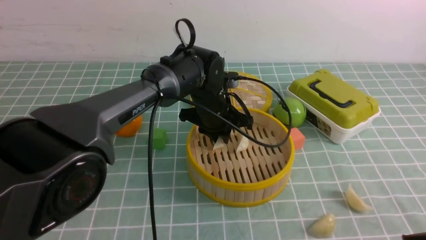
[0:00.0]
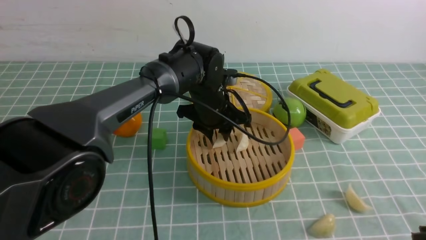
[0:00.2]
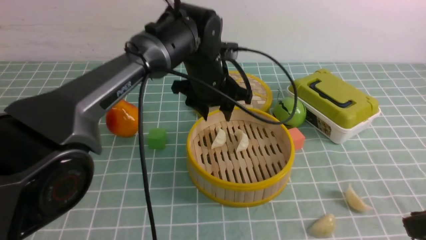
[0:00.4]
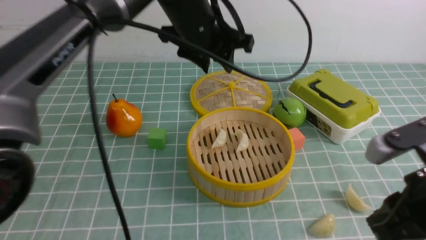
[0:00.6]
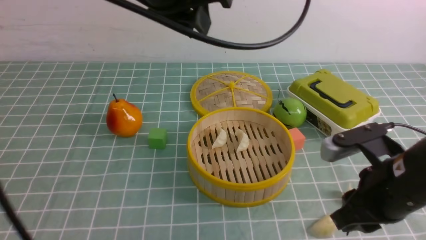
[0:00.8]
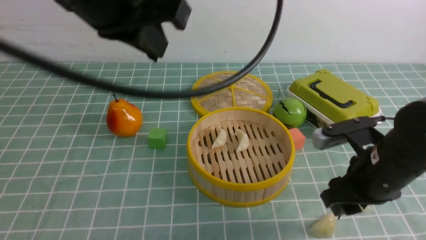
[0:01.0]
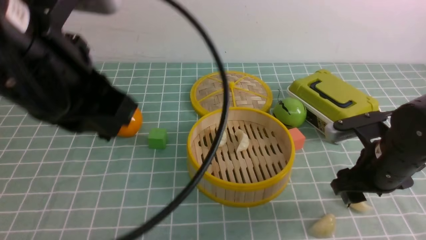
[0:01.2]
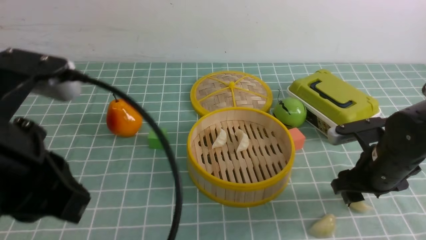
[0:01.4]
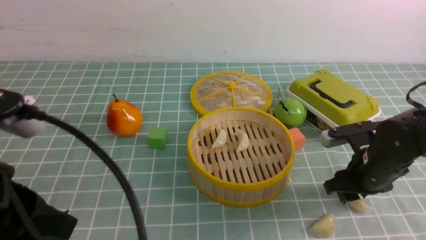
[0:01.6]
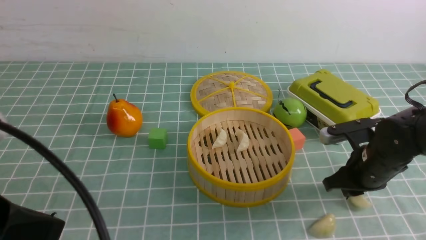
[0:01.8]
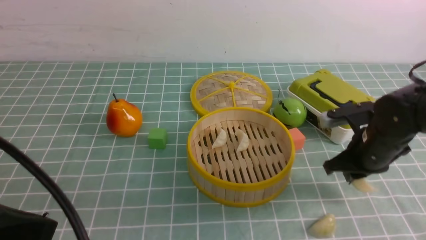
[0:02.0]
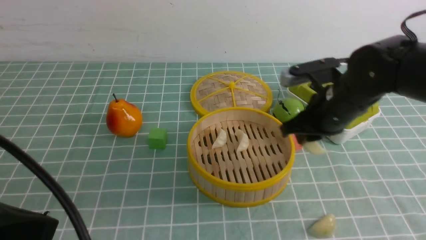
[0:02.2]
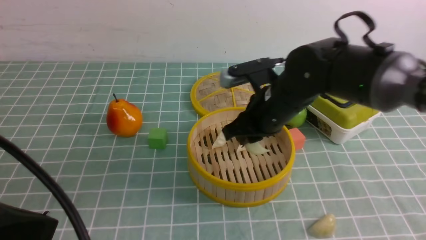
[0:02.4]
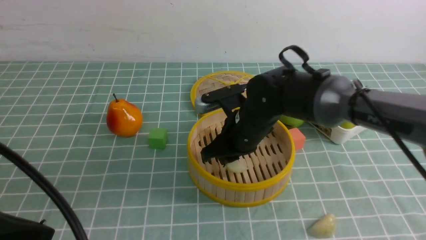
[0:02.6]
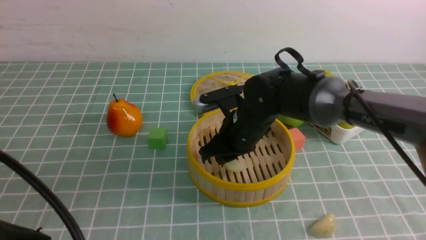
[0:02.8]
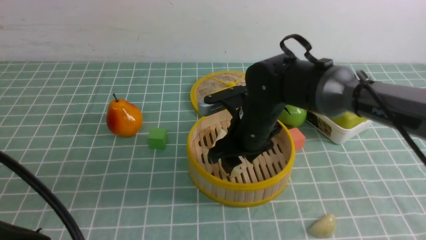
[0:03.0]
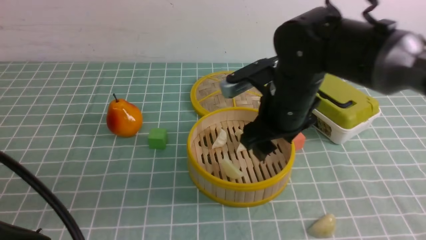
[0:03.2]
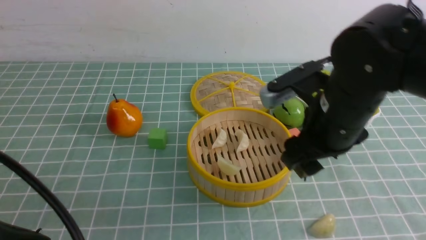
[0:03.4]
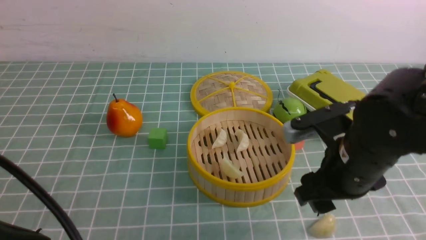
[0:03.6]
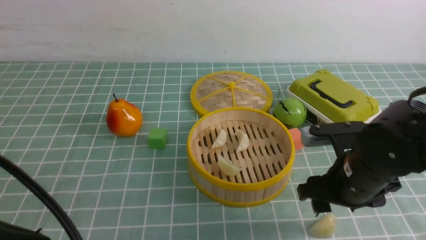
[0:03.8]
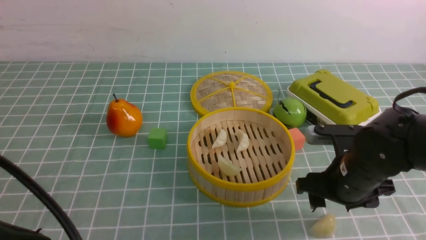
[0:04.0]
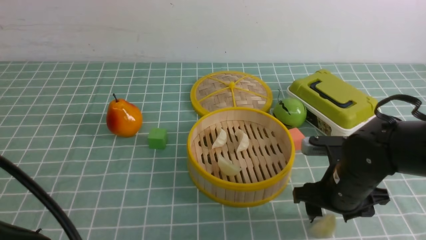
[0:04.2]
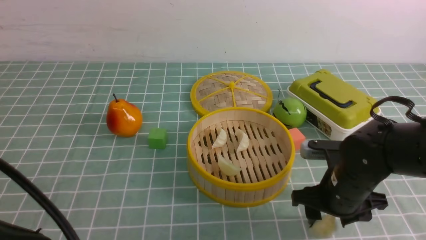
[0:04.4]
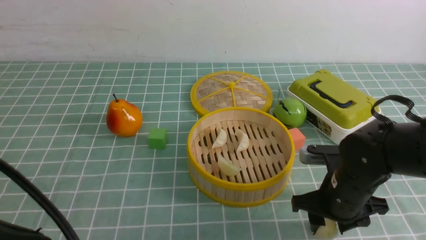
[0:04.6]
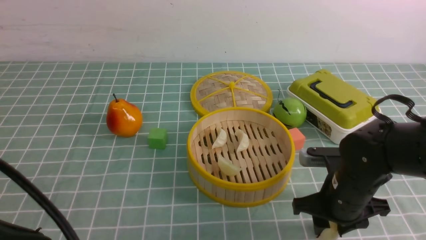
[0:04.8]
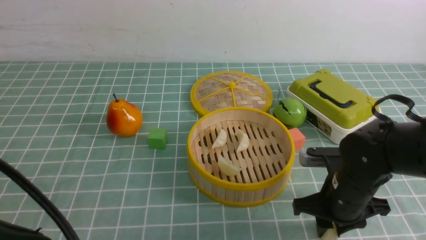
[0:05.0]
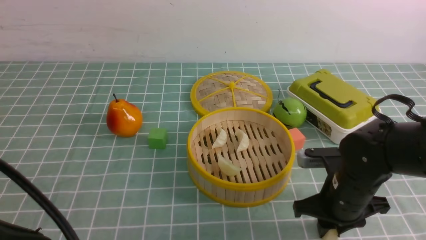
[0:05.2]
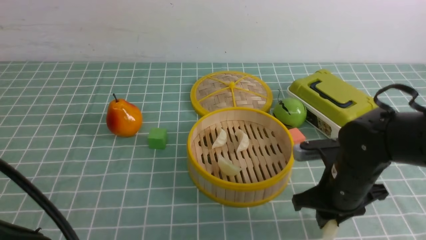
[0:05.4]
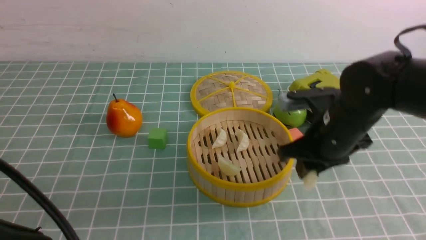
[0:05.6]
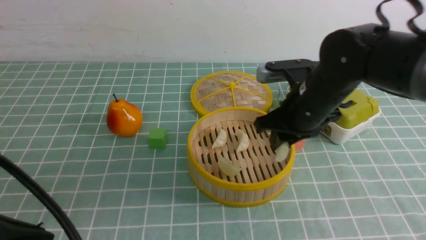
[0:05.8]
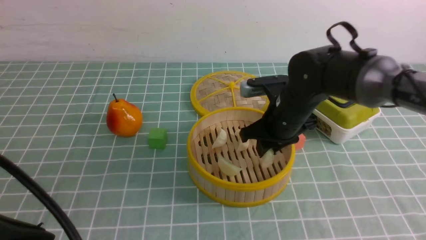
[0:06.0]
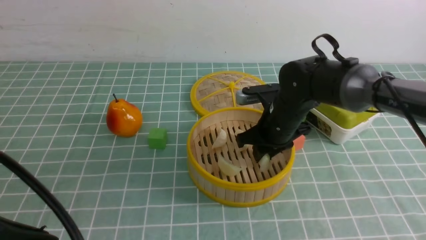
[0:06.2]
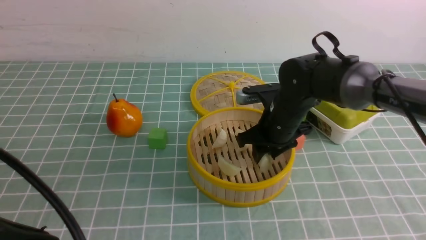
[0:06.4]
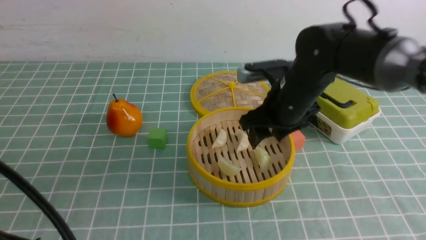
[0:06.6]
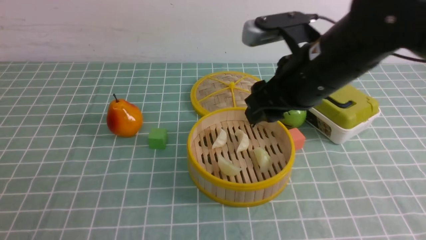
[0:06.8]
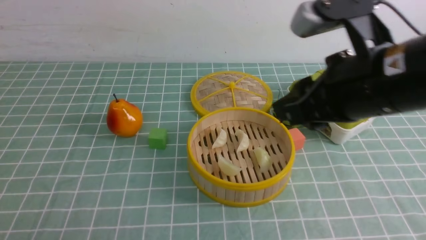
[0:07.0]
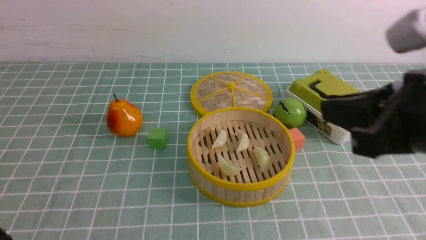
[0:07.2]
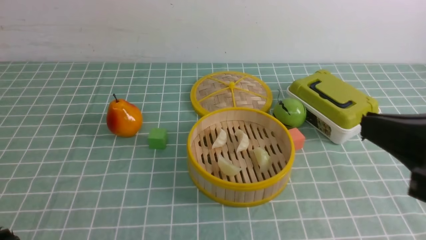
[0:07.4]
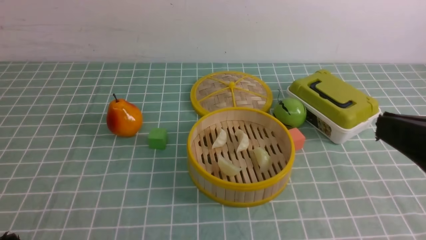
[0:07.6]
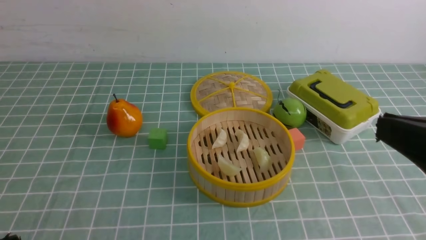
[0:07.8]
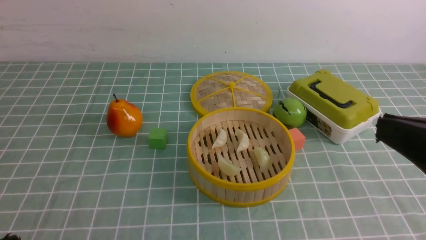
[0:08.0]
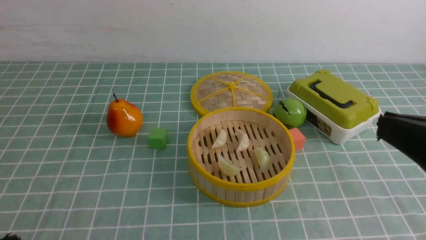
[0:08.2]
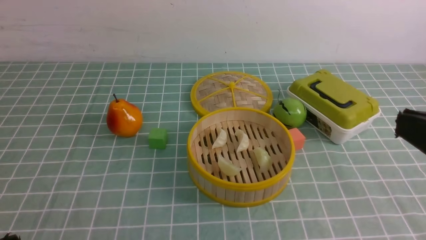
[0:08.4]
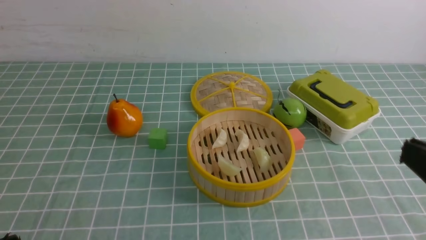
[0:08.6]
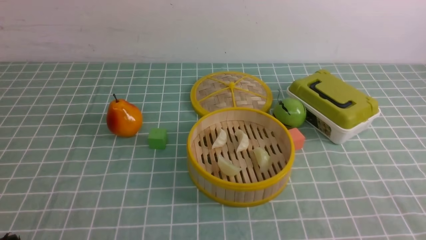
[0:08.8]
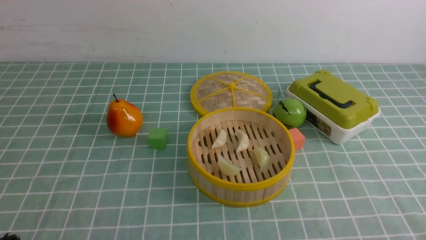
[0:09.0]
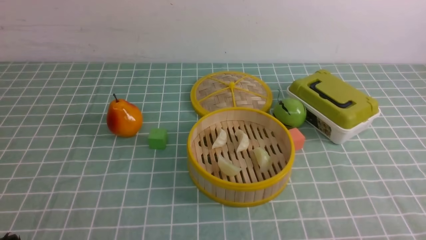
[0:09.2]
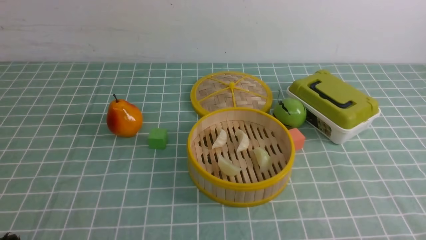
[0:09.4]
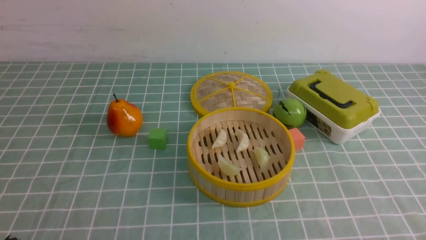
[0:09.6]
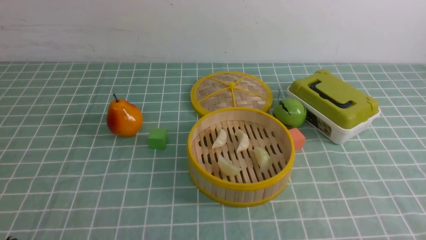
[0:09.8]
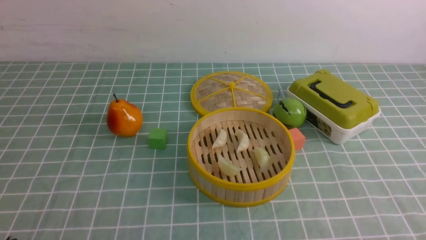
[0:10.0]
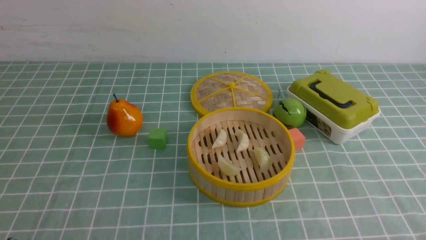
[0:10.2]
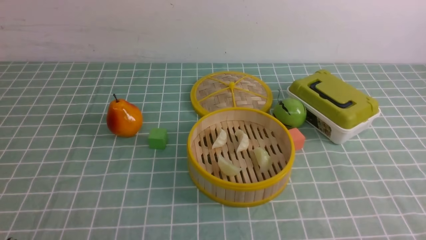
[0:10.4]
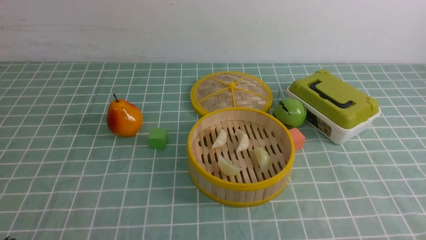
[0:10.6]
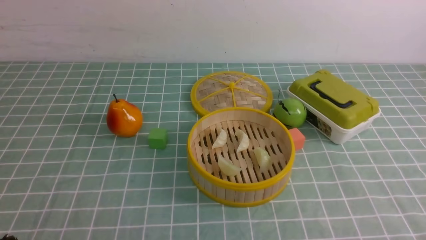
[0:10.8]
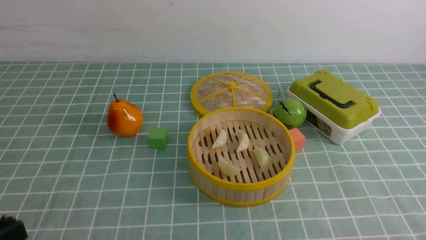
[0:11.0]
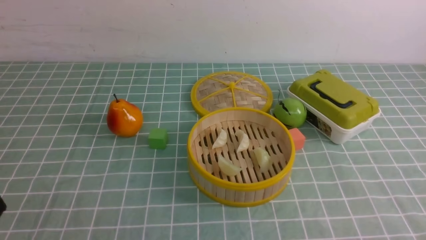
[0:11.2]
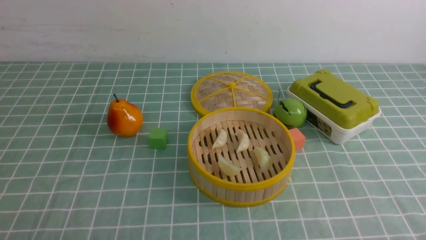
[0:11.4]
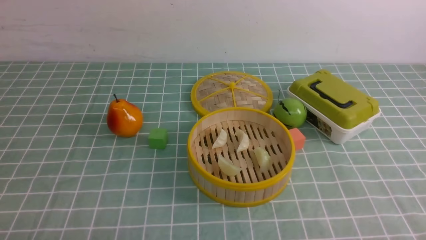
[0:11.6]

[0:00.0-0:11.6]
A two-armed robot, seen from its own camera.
Task of the whole recording: put the dumplings into the steamer on the table with the blue tablecloth.
Step, 0:00.4 to 0:02.2: use the right arm to grab a dumpling.
Step, 0:02.4 to 0:03.2: use the right arm to put the dumpling into the steamer.
Step, 0:03.4 to 0:05.6: use the right arm to grab a dumpling.
Step, 0:05.8 to 0:06.6: use the right arm to put the dumpling into the steamer.
0:00.0 to 0:01.4: The left gripper heads backward, upward and to the left, covering approximately 40 cm, and closes; the right gripper heads forward and downward, covering about 25 cm, and opens.
0:01.4 to 0:02.8: The right gripper moves to the left, about 20 cm. The left gripper goes roughly 5 cm backward.
0:02.8 to 0:04.4: The right gripper heads to the right and backward, covering about 15 cm, and opens up.
0:04.4 to 0:05.8: The right gripper goes approximately 10 cm upward and forward, and closes.
0:05.8 to 0:07.2: The right gripper shifts about 25 cm backward and upward, and opens, then closes once more. Meanwhile the left gripper heads backward and downward, covering about 10 cm.
0:07.2 to 0:08.8: The right gripper heads downward, to the right and backward, covering about 20 cm.

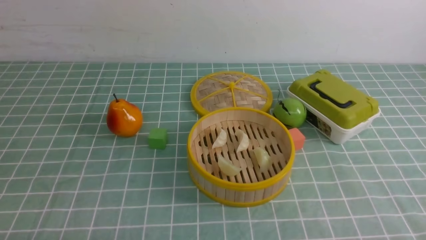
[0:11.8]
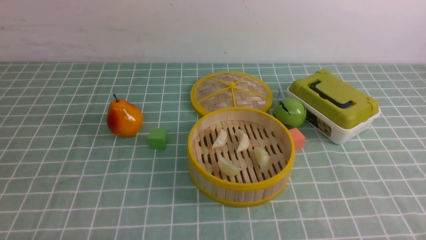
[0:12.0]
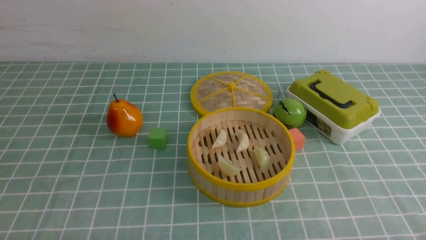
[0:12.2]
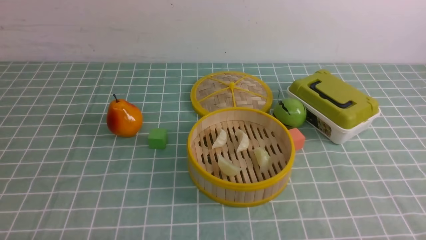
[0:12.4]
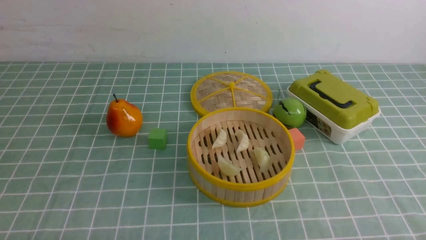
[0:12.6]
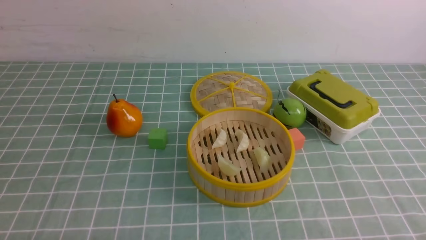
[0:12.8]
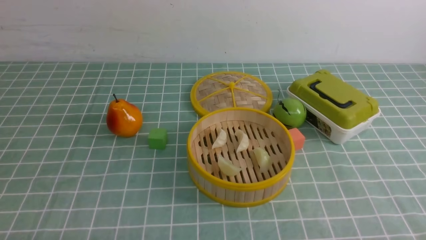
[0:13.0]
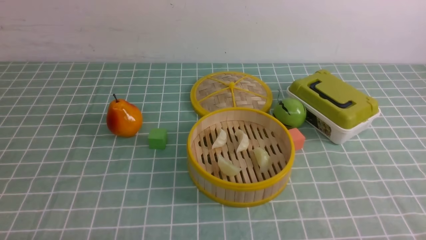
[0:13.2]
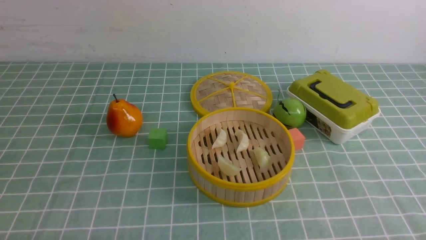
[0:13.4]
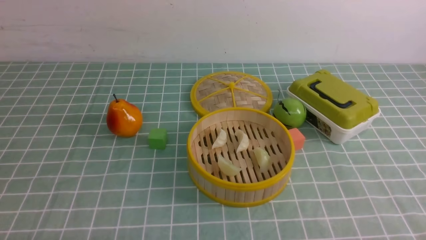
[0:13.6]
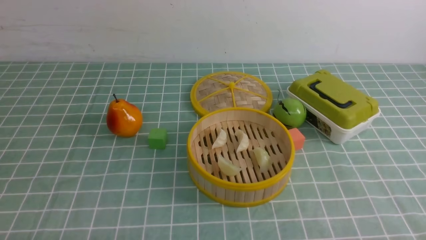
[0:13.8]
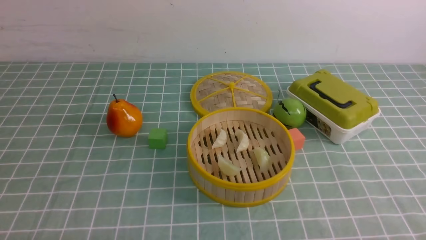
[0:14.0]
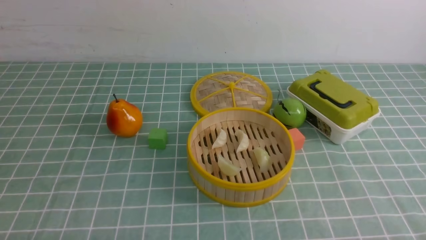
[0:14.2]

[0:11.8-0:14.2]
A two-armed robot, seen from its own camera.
Task of the whole recording: put the dumplings into the steamer on the table with the blue tablecloth.
0:11.8 to 0:14.2: Neither gripper changes place.

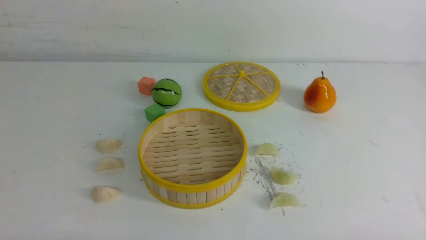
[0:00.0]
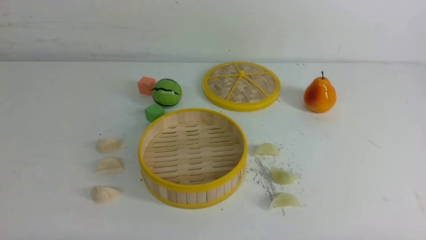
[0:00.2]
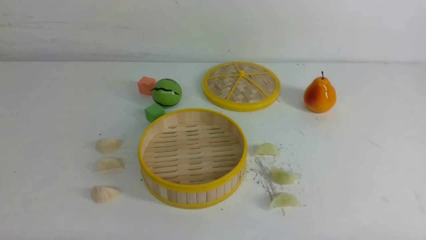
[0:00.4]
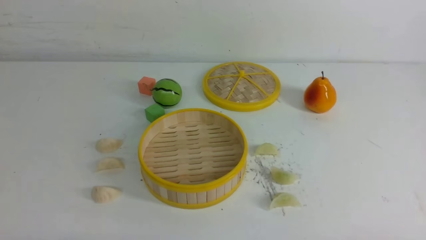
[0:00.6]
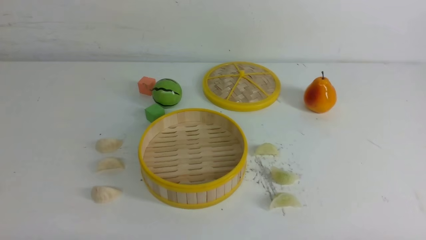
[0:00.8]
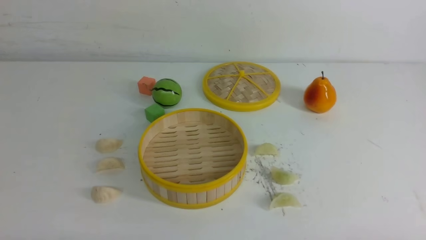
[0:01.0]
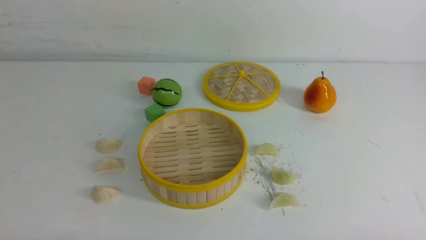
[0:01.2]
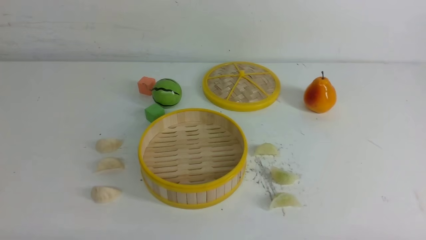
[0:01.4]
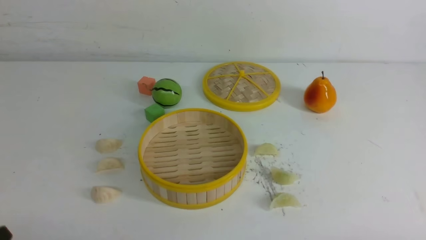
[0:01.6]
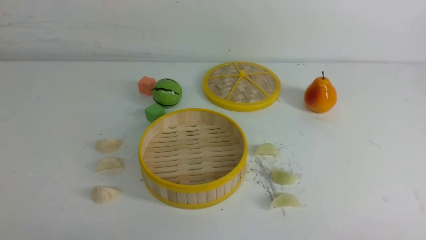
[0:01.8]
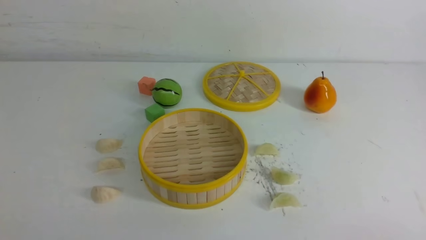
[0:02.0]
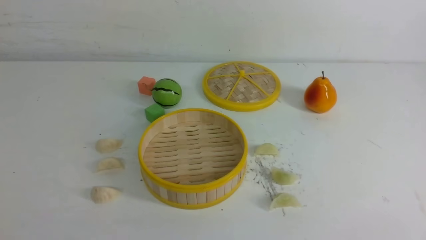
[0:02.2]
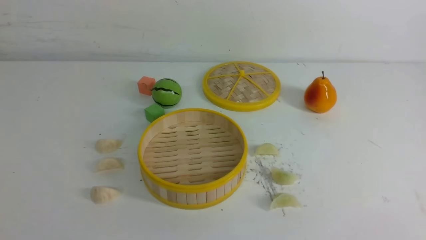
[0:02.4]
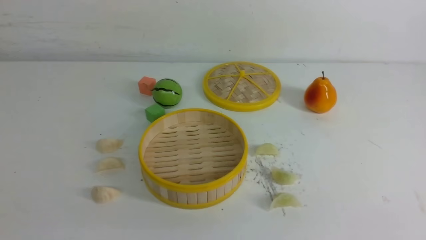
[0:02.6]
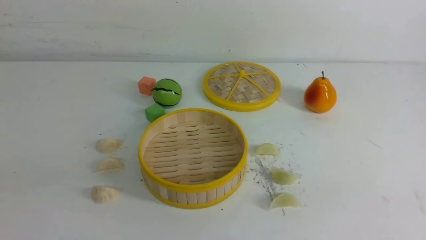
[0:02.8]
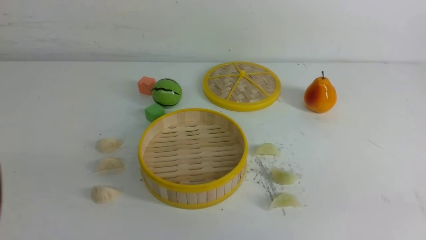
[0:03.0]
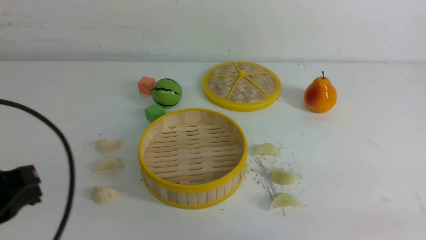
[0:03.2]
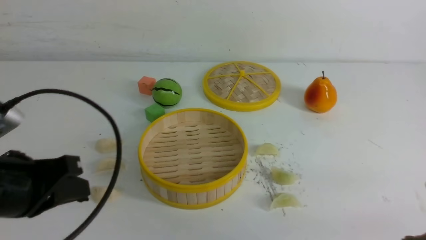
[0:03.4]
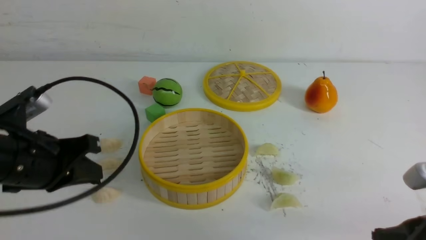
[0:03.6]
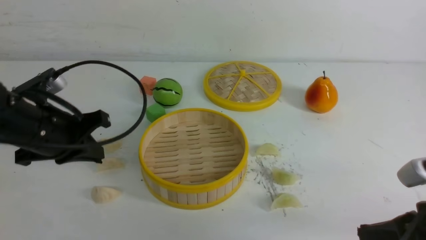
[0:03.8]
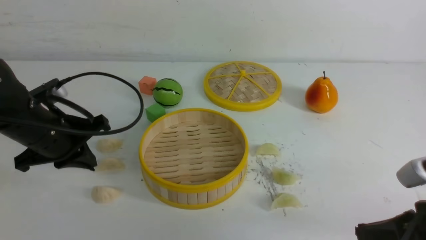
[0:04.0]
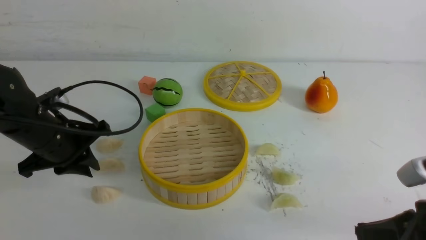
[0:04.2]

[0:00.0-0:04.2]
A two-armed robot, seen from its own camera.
Task of the whole recording: put the dumplings into the steamer on the white table.
0:02.8 to 0:04.2: The left gripper shifts some 25 cm forward and downward, and opens. The right gripper goes about 15 cm forward, downward and to the left.
